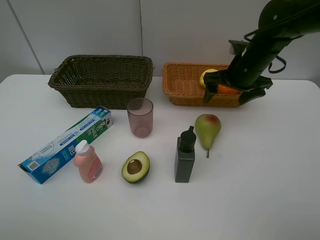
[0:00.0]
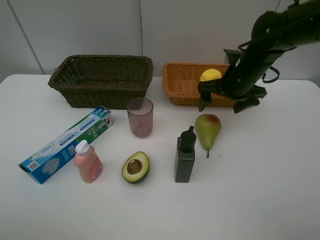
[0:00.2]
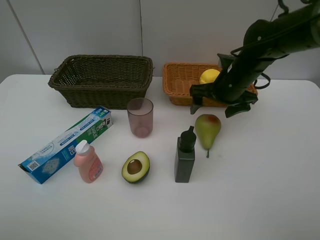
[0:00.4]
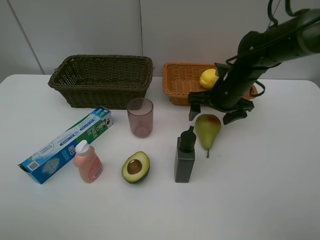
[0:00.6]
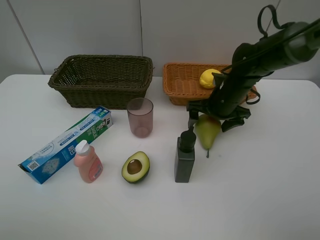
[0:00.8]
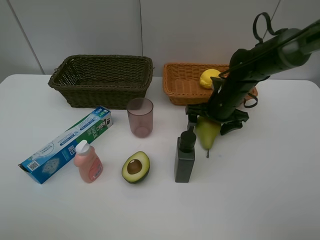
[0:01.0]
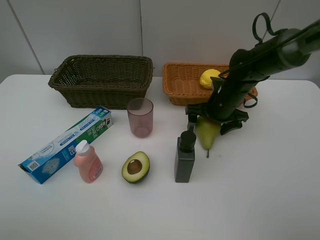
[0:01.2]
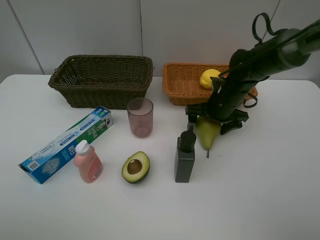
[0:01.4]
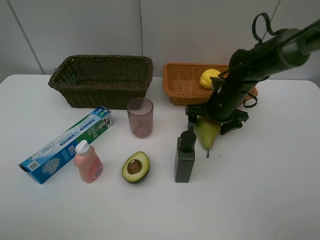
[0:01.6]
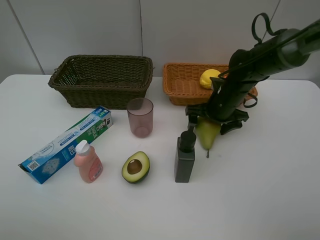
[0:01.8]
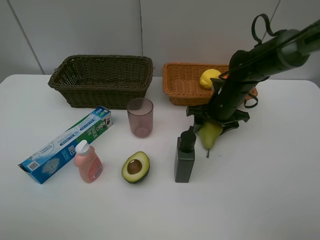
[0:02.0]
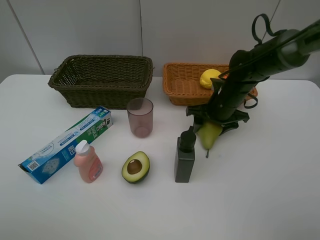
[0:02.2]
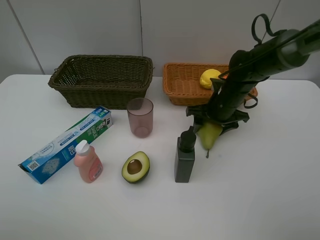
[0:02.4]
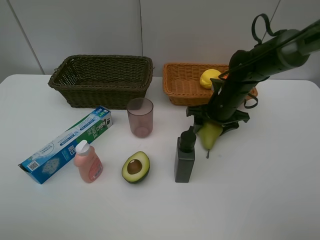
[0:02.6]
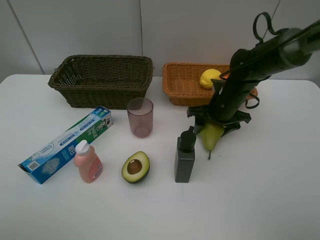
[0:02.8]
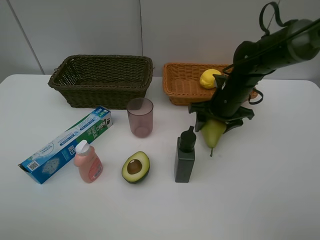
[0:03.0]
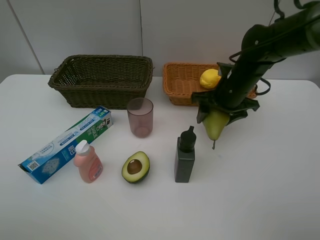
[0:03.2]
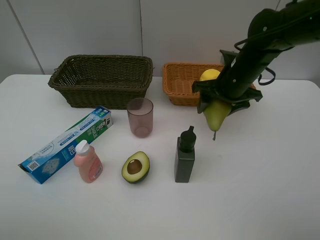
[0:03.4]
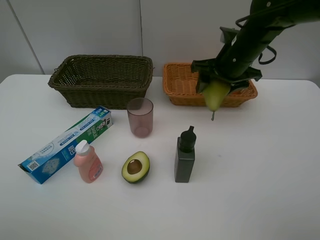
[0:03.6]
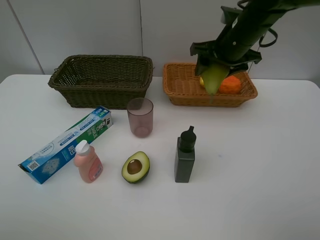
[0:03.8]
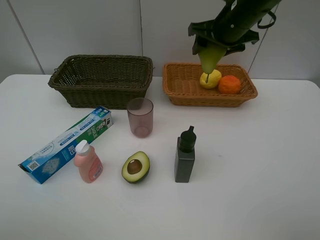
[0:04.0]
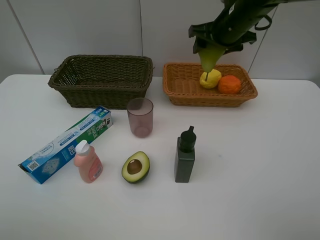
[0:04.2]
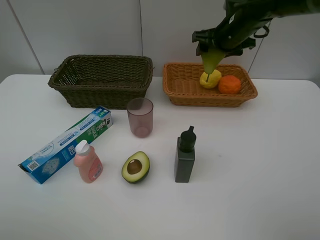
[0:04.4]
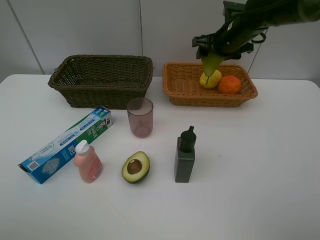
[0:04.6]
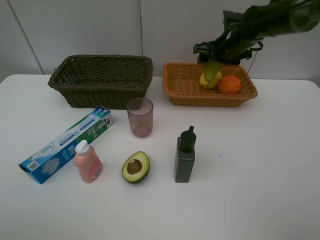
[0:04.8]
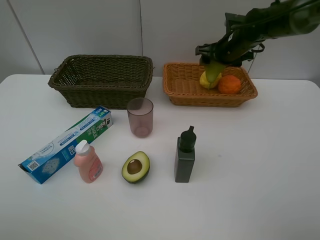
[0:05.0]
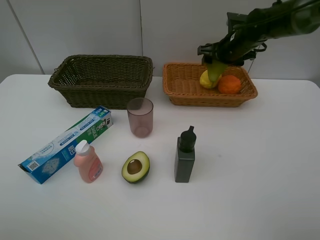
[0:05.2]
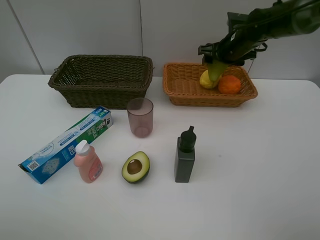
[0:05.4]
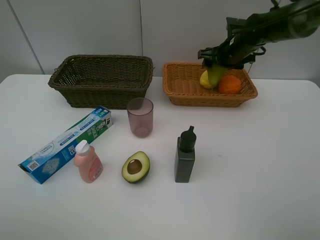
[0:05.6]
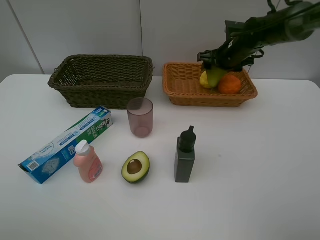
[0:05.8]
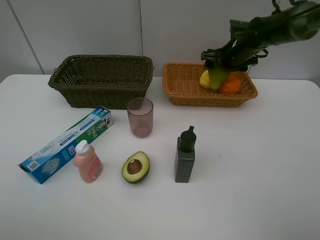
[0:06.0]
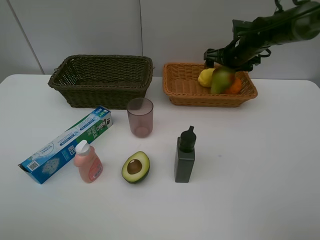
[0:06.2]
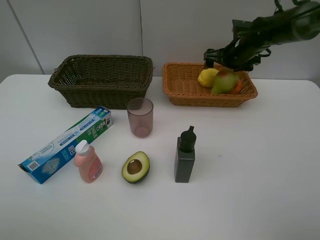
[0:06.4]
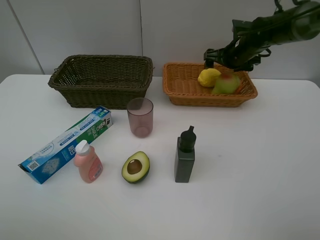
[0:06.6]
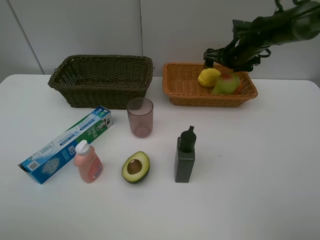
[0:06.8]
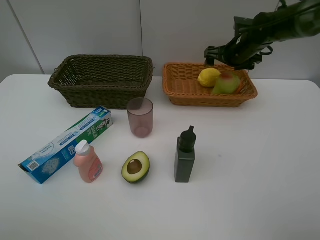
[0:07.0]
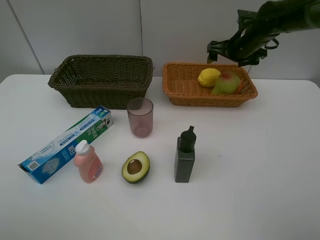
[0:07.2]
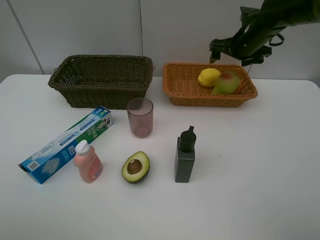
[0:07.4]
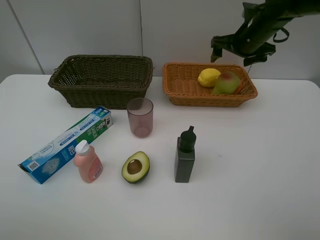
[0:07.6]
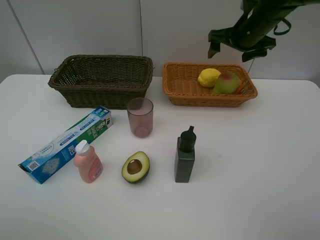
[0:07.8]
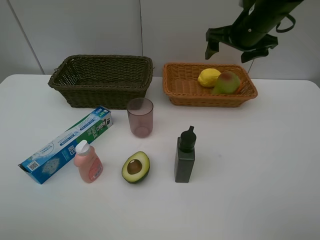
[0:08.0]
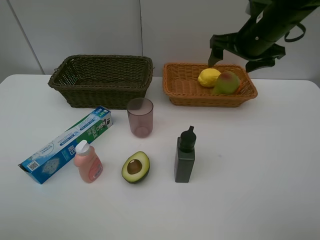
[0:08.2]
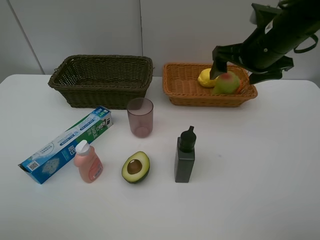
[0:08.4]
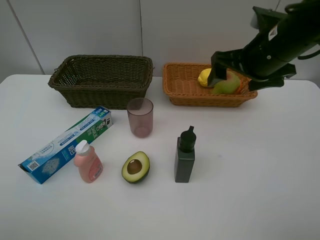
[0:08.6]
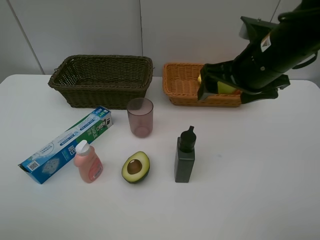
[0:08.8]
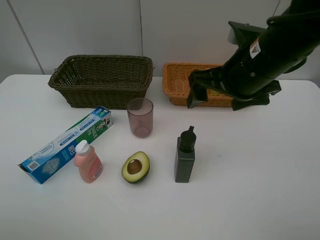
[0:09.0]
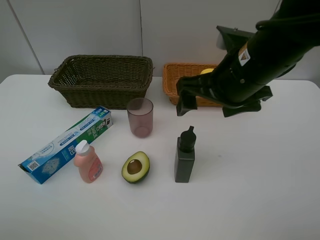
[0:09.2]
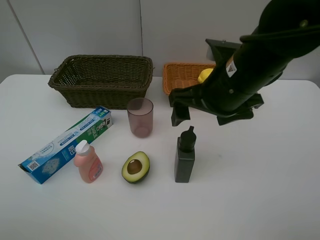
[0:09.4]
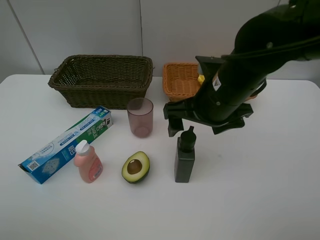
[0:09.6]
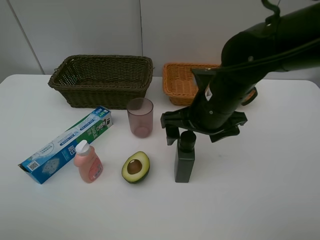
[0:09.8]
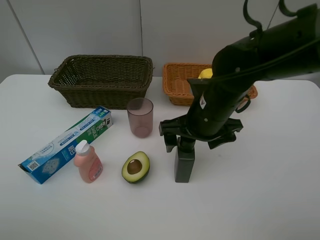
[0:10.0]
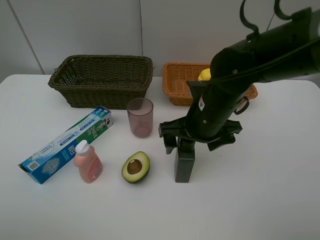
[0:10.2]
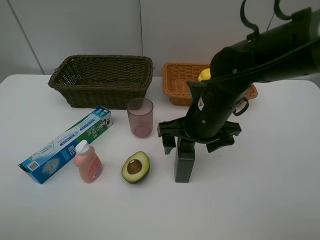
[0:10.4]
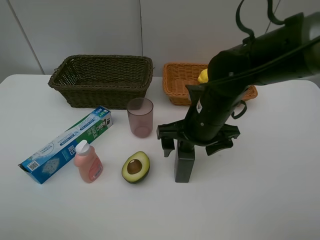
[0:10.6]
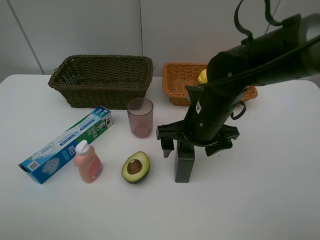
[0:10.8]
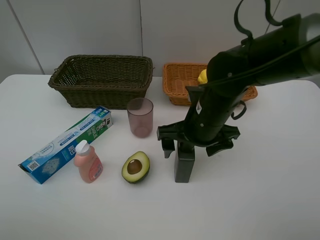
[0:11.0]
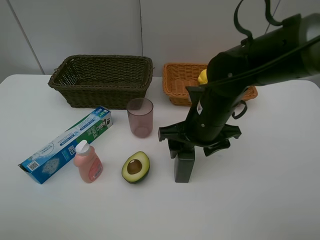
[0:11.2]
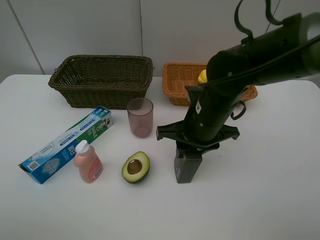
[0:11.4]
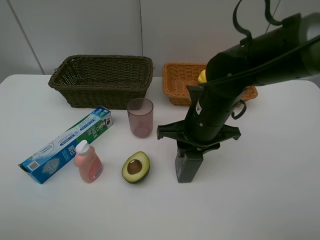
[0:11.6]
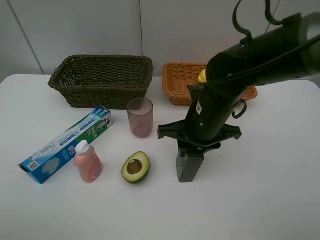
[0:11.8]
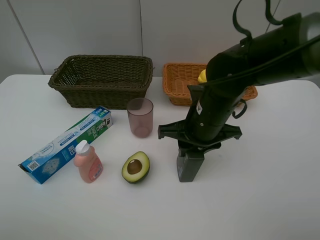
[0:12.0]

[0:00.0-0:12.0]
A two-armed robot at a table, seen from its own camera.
Task of the whole recording: Place multiple objects separately in different baskets.
Step, 0:00.0 to 0:03.2: Pick up the pear with right gripper.
Step, 0:03.4 to 0:07.0: Place the pear in the light basket with right gripper.
0:00.0 to 0:01.6: The right gripper goes roughly 10 cm downward.
0:01.6 to 0:03.0: The right gripper closes its fingers.
0:03.0 to 0:04.4: The right gripper shifts some 15 cm upward and forward.
0:04.4 to 0:06.0: The right gripper goes about 5 cm downward.
0:06.0 to 0:07.6: The right gripper is displaced upward by some 5 cm.
0:07.6 to 0:09.0: The right gripper heads backward and to the left, covering about 20 cm.
0:09.0 to 0:10.4: The right gripper shifts approximately 10 cm downward.
0:10.4 to 0:12.0: The right gripper closes up.

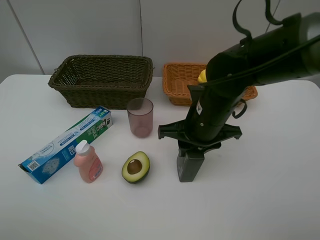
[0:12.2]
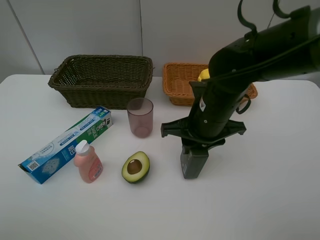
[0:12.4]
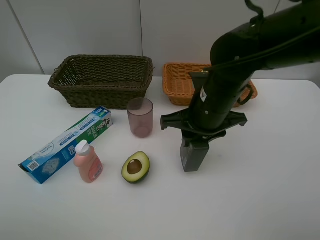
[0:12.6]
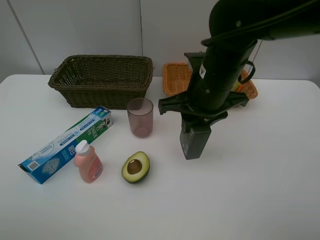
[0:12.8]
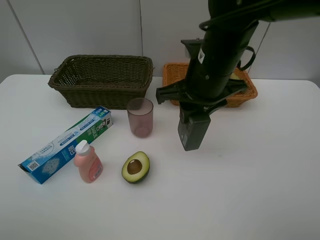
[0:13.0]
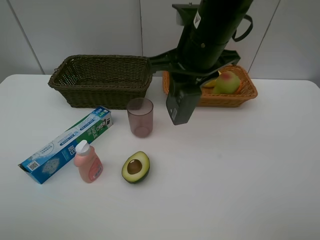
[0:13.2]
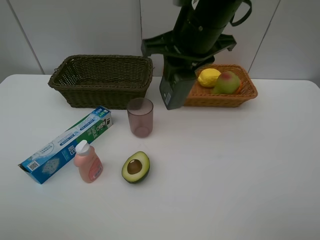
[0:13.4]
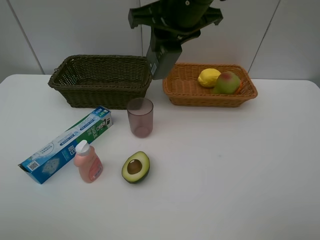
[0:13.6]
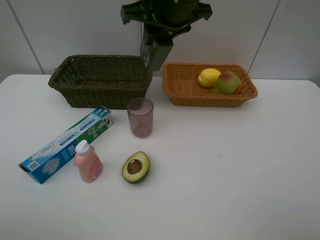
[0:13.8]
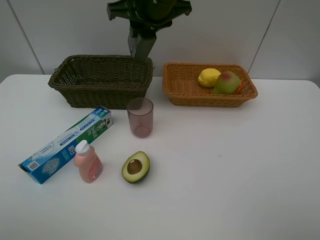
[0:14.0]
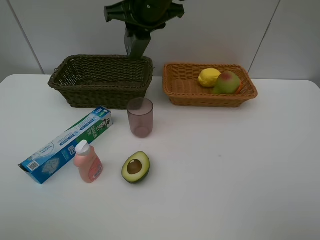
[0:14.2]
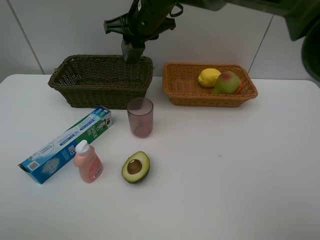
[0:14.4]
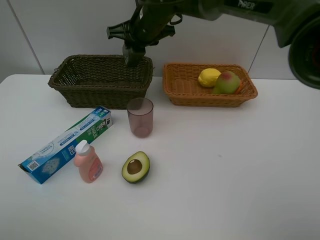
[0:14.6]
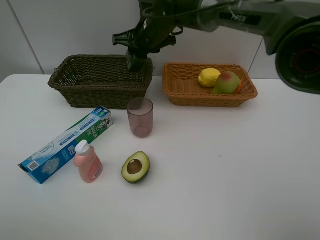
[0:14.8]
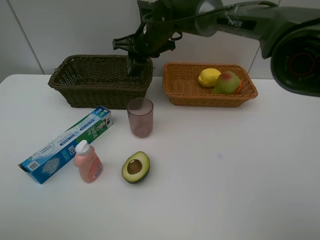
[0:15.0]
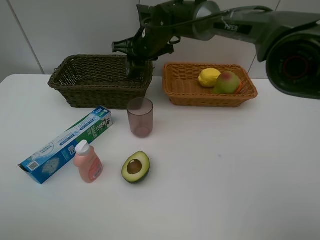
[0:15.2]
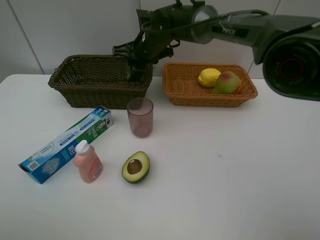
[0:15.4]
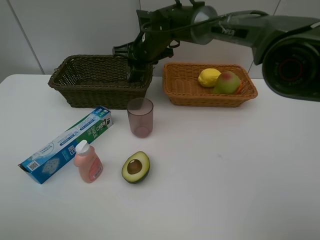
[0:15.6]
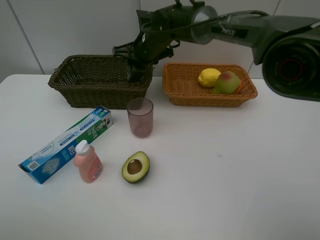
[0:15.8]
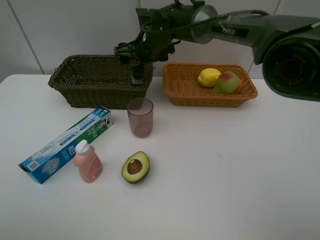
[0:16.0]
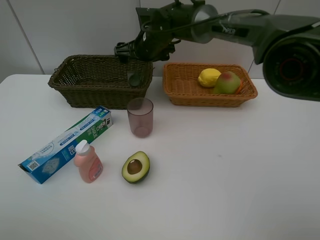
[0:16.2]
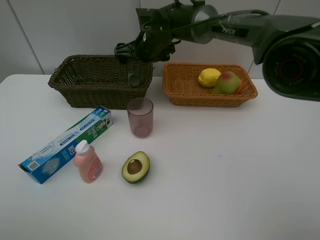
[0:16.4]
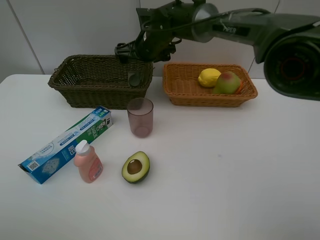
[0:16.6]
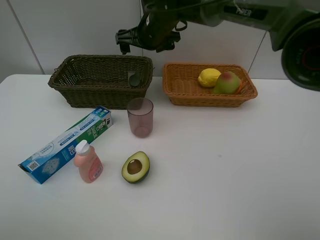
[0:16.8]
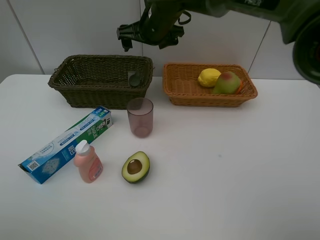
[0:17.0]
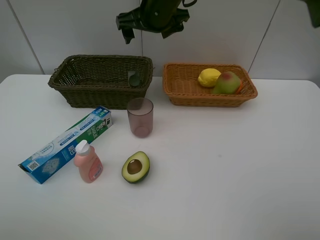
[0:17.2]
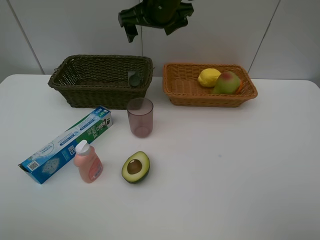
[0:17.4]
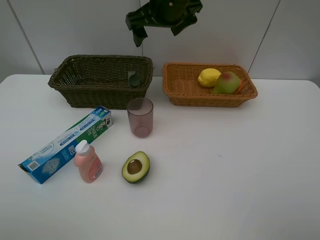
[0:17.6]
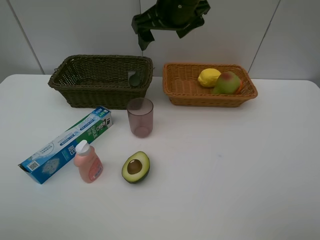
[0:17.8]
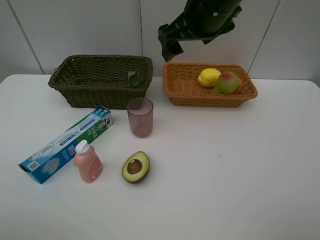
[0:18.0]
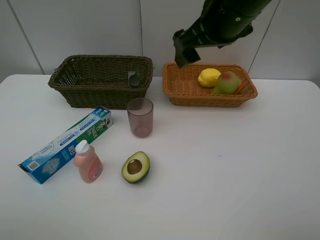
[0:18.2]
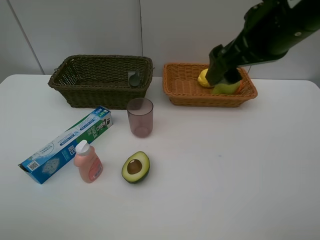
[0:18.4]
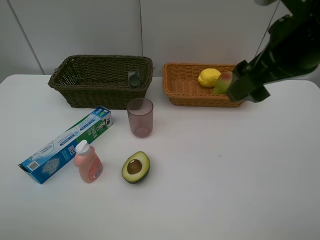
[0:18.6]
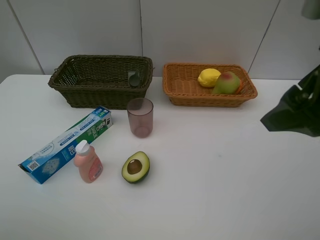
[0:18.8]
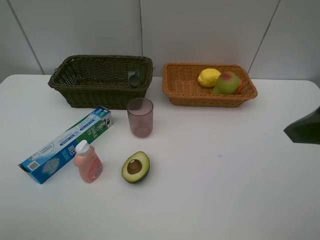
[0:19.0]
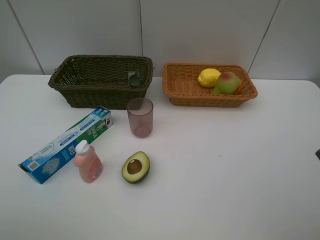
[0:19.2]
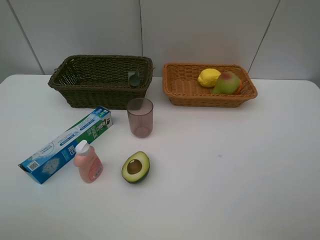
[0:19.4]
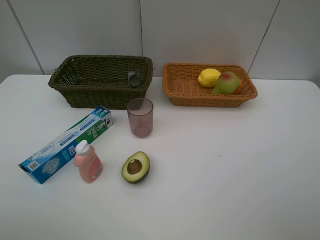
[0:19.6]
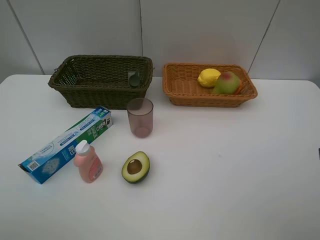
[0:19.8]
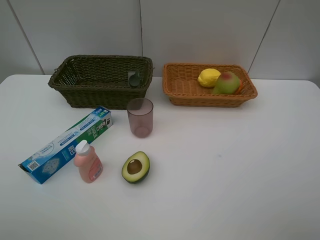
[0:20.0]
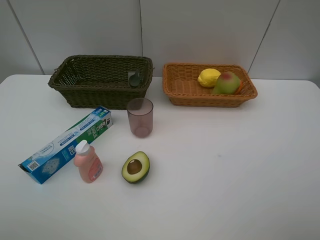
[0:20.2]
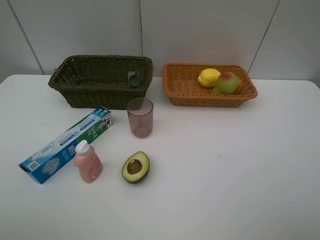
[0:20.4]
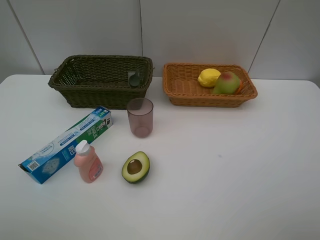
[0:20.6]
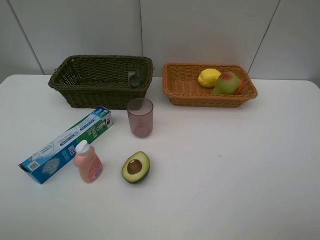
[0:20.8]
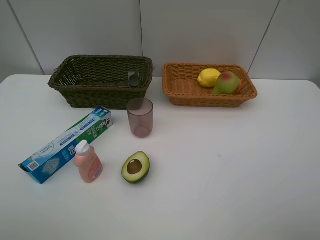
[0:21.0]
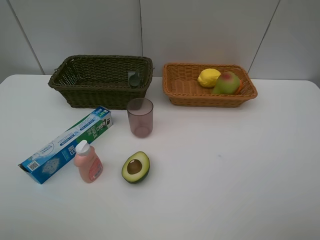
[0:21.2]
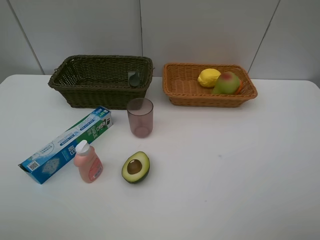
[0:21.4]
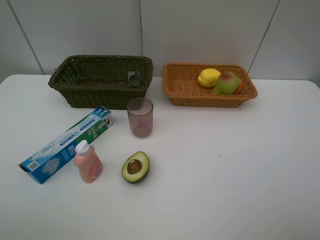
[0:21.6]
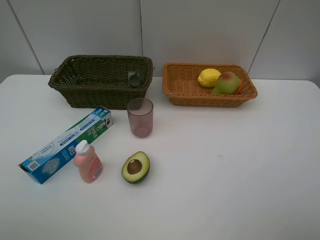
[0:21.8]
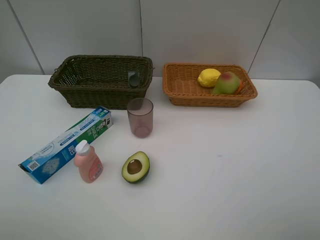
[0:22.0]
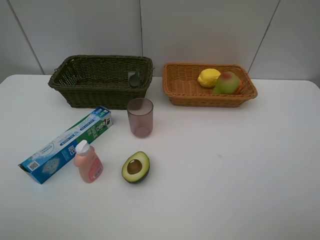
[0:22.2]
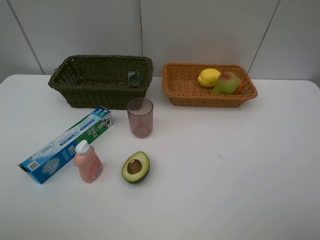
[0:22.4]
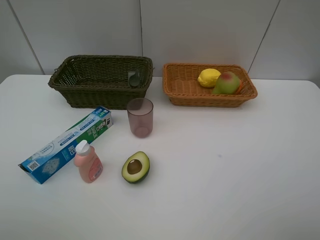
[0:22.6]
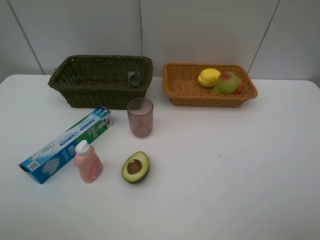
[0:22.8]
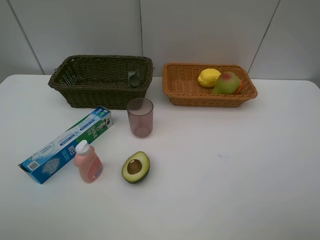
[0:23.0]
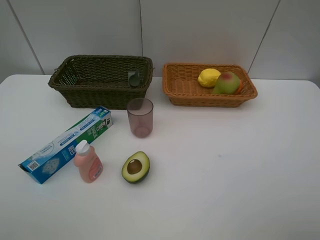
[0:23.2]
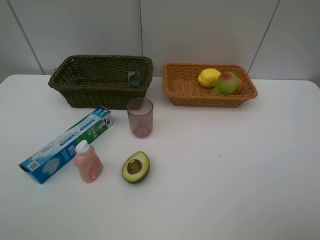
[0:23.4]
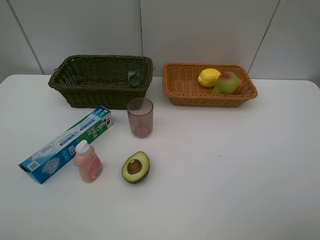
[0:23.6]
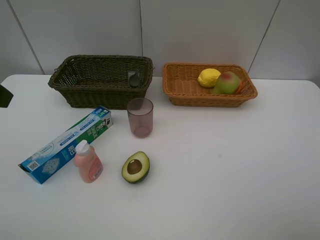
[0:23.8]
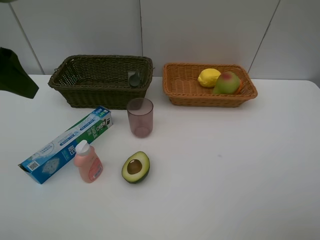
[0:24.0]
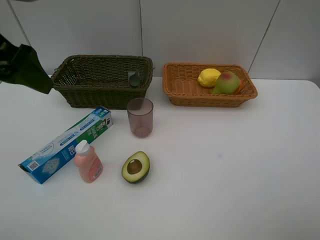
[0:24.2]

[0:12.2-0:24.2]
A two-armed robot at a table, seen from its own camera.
Task of the whole recording: Place multiple objects separately in different baskets.
Step, 0:13.0 to 0:16.8: Place the hard facial cleanser in the dark basket with right gripper.
0:12.2 to 0:13.8: The right gripper shifts approximately 20 cm upward and forward.
0:13.8 to 0:15.2: The right gripper shifts approximately 15 cm downward and forward.
0:15.2 to 0:16.6: The right gripper opens up.
0:16.6 to 0:18.2: The right gripper shifts roughly 25 cm backward, to the right and upward.
0:18.2 to 0:19.8: The right gripper heads backward and to the right, covering about 30 cm.
0:21.2 to 0:22.6: The two grippers keep their place.
0:22.6 to 0:24.2: The left gripper heads forward, covering approximately 20 cm.
